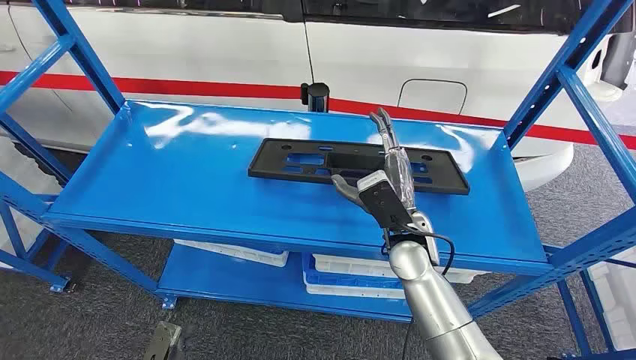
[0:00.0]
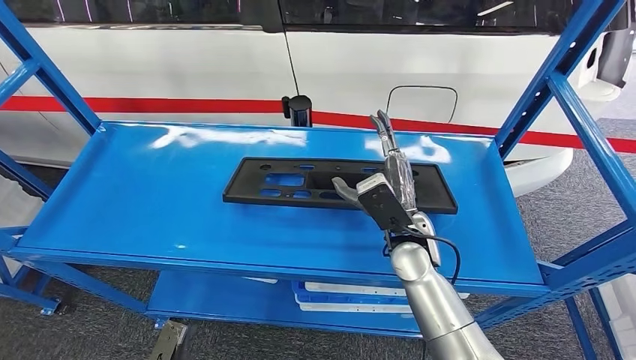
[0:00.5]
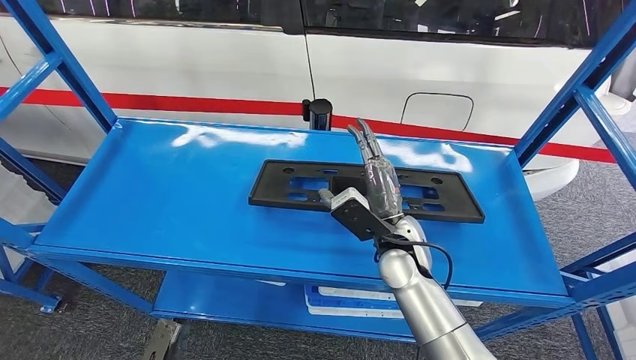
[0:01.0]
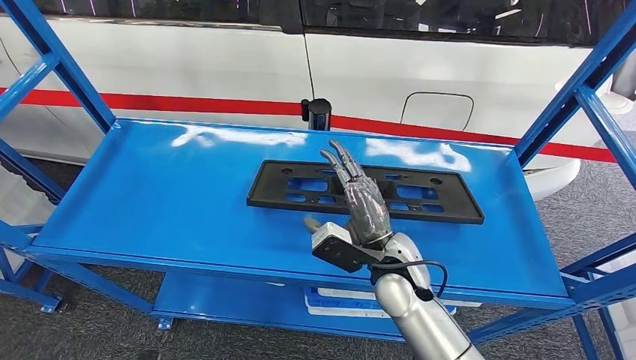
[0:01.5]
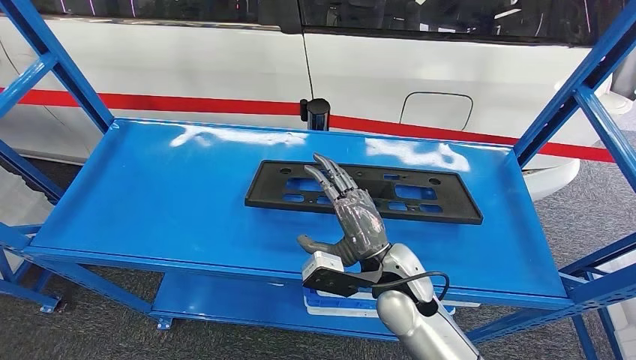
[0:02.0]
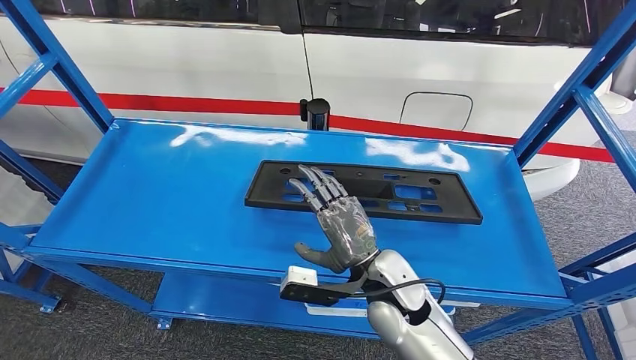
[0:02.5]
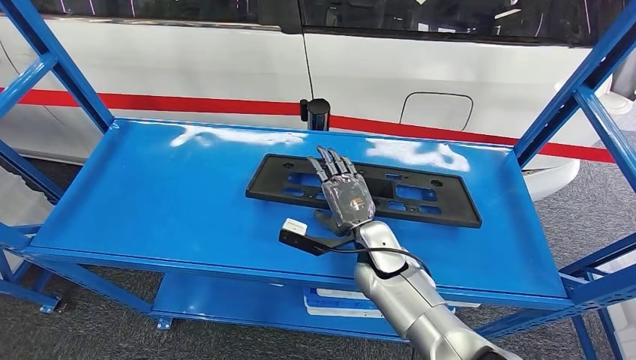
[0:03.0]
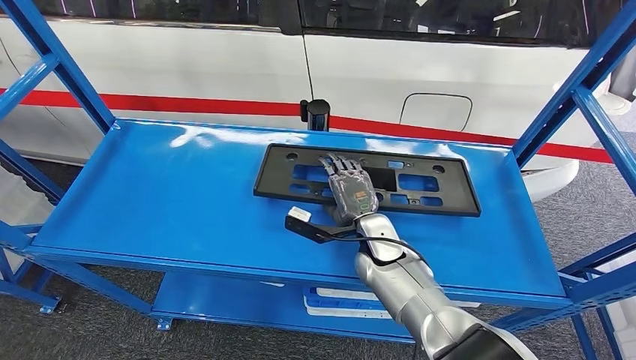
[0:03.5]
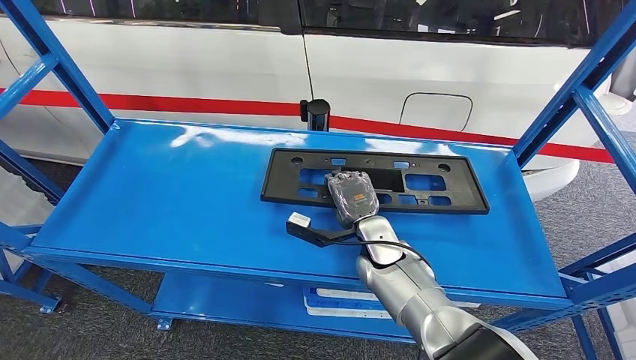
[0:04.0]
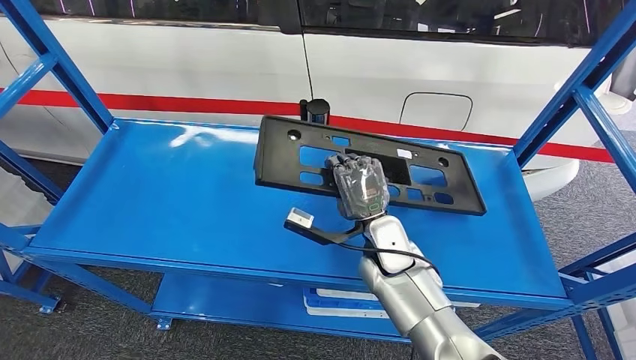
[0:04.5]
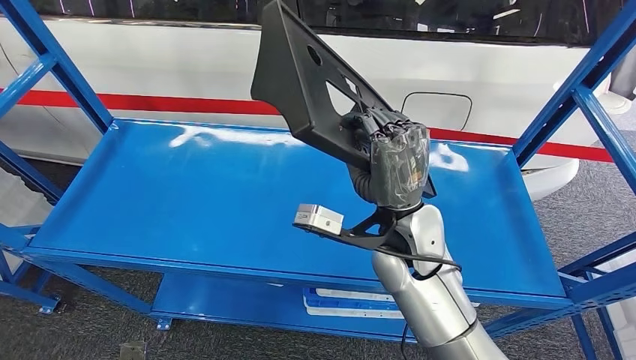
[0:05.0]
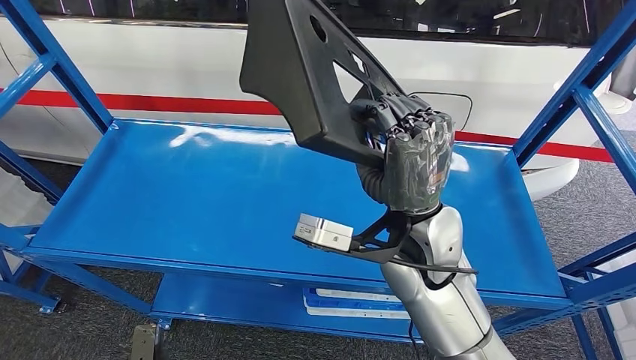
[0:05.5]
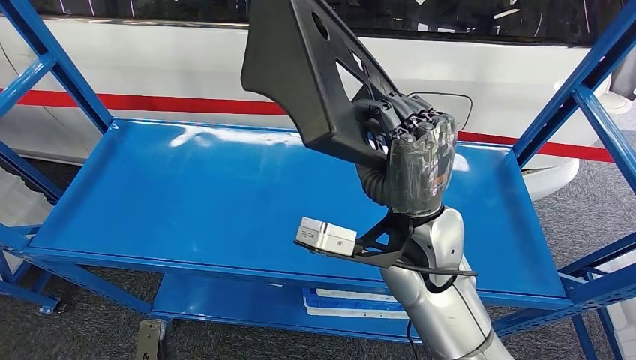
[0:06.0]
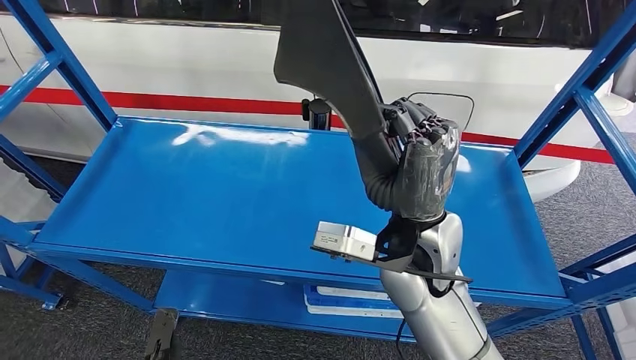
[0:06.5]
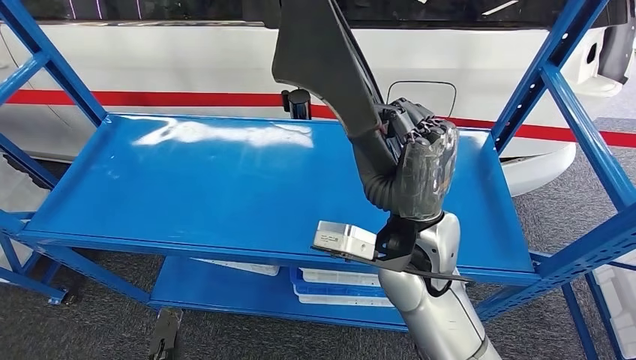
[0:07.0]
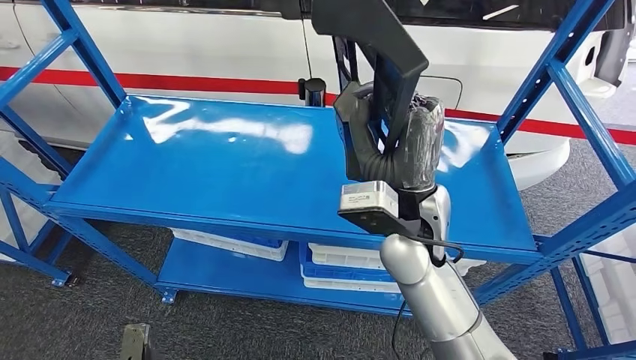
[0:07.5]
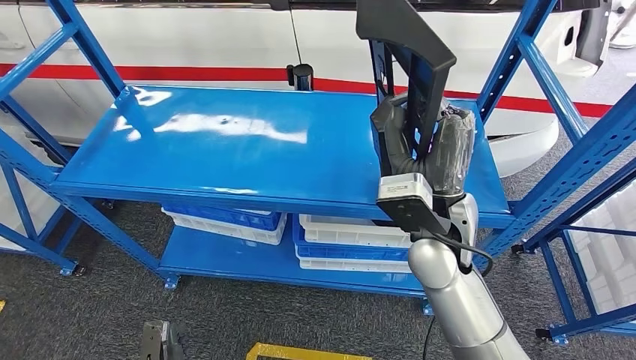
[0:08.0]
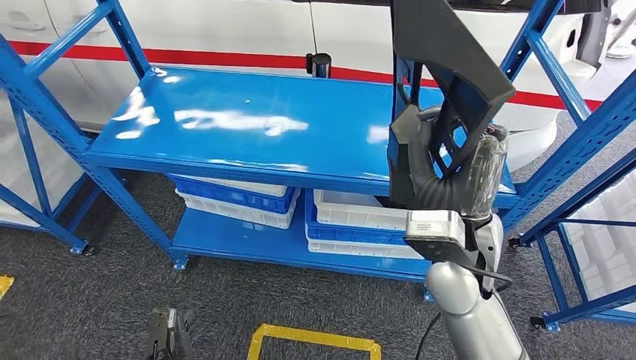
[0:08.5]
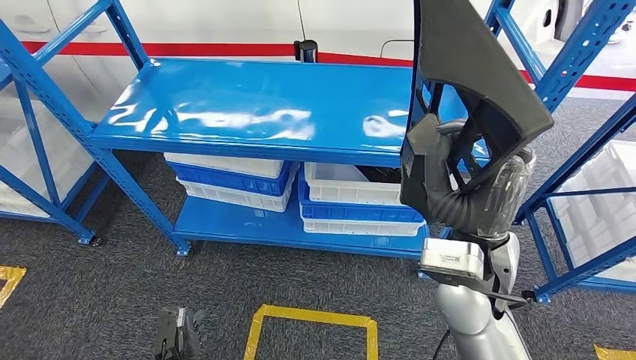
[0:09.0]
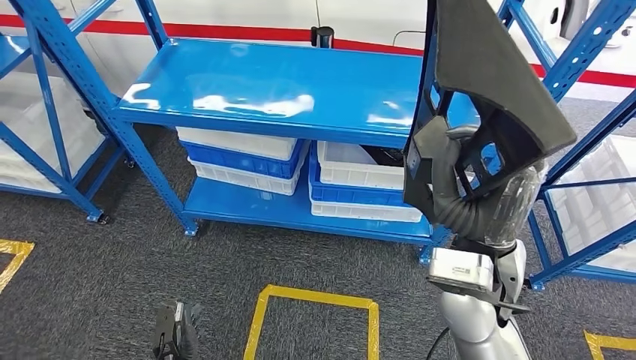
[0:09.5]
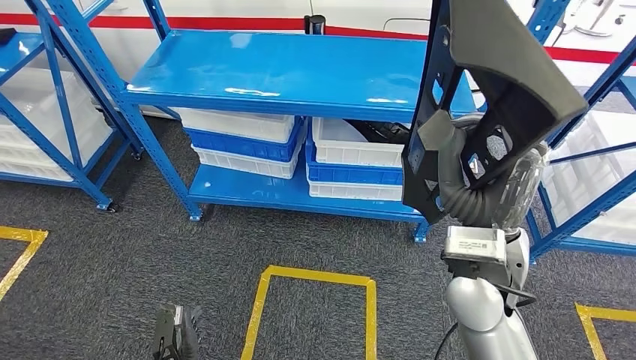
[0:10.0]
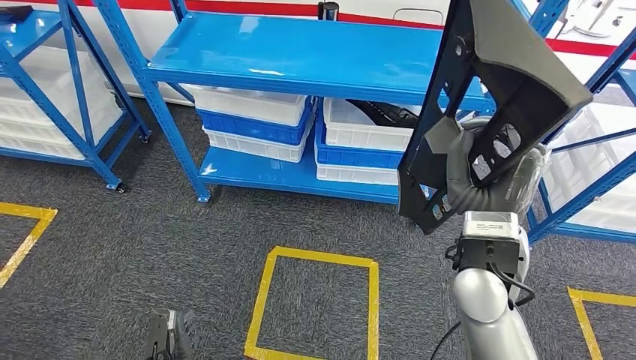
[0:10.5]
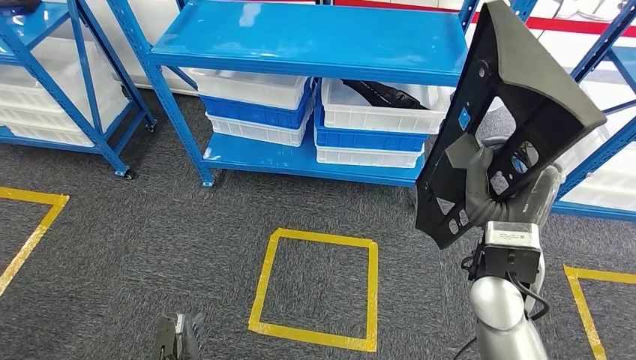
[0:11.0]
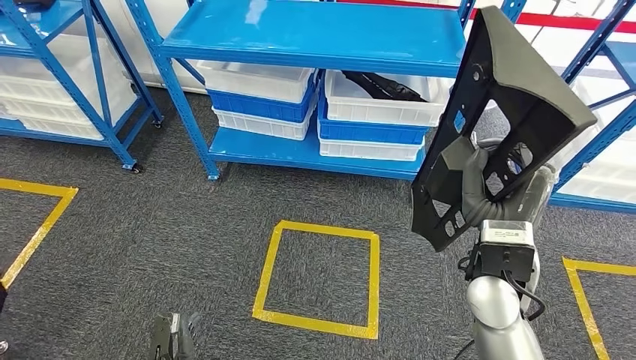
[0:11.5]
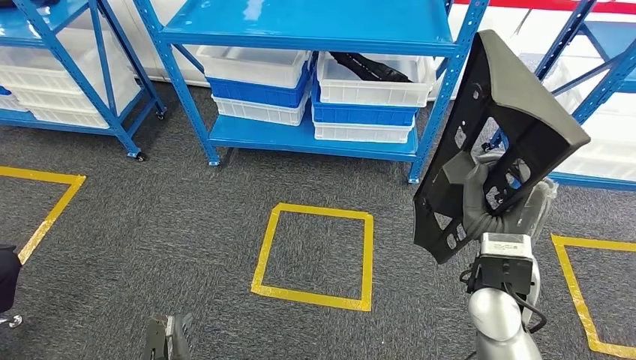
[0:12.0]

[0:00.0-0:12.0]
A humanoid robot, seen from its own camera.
Step, 0:00.0 to 0:05.0: Pick up the large material from the shelf.
0:02.0 to 0:04.0: The right hand heads forward and downward, covering about 10 cm.

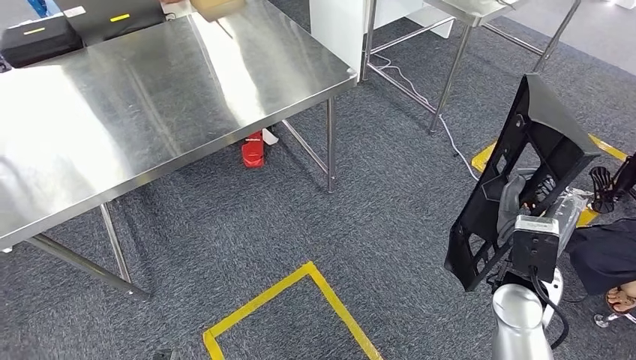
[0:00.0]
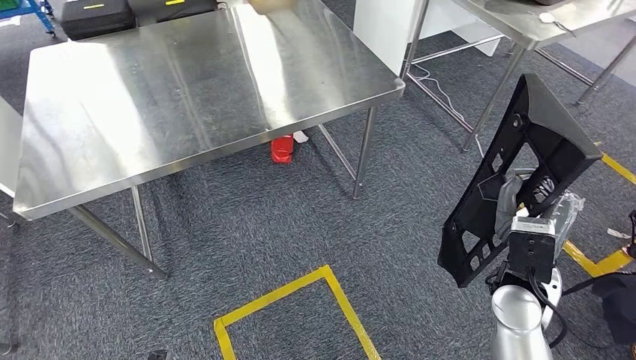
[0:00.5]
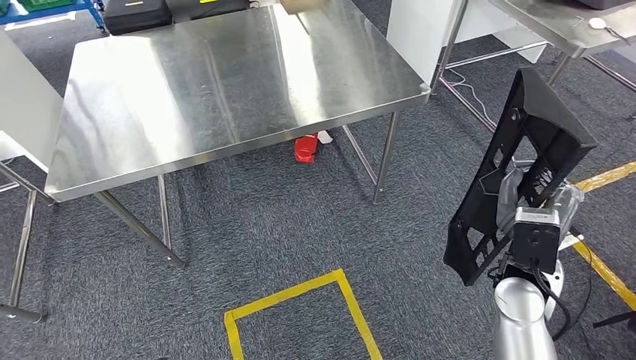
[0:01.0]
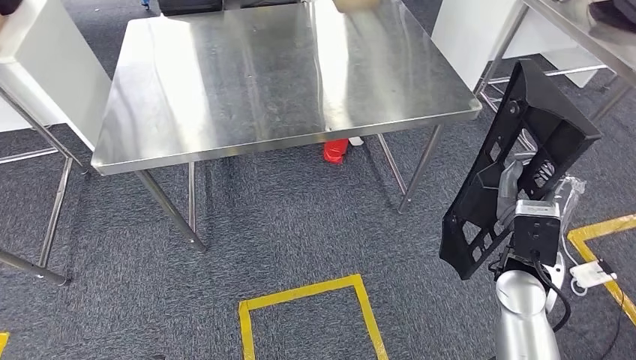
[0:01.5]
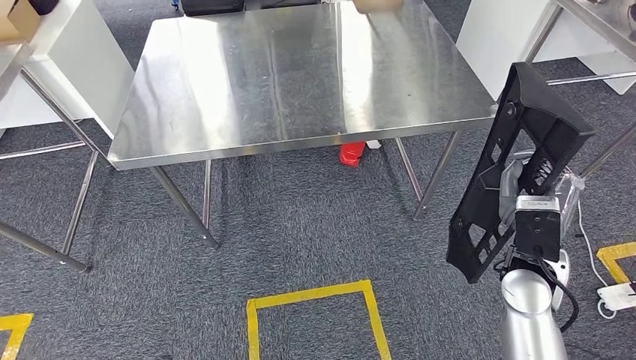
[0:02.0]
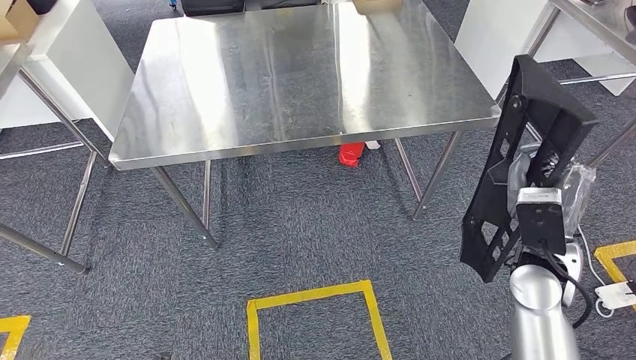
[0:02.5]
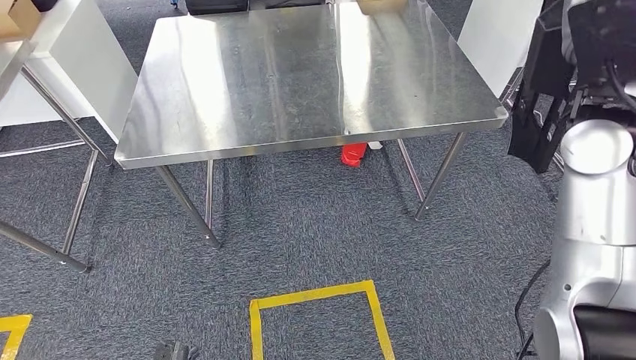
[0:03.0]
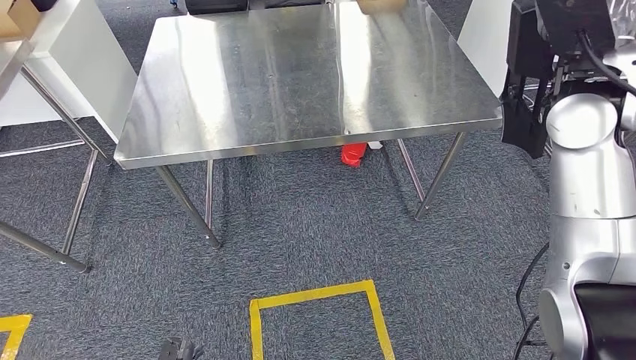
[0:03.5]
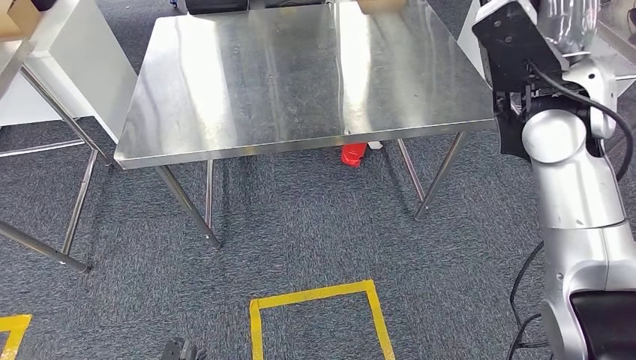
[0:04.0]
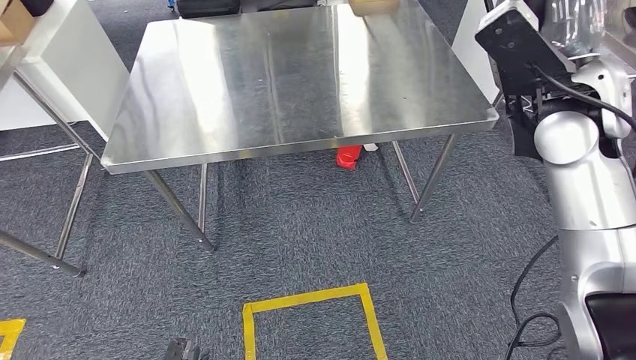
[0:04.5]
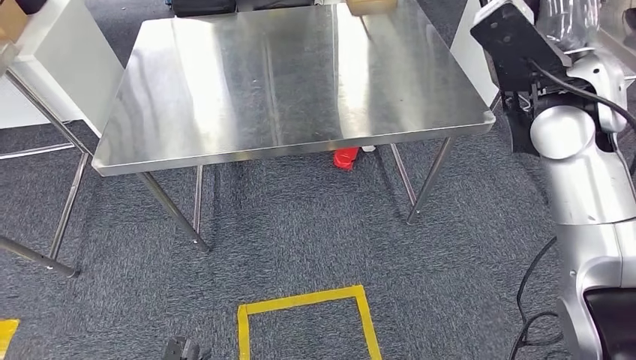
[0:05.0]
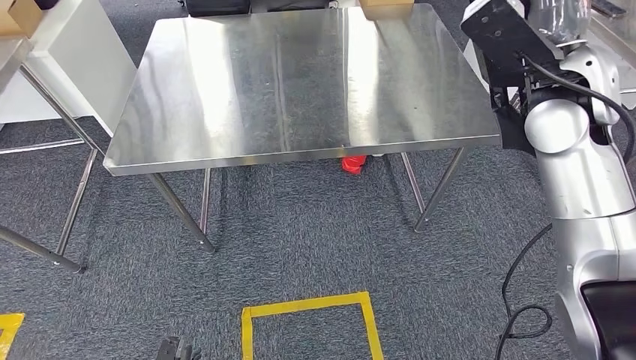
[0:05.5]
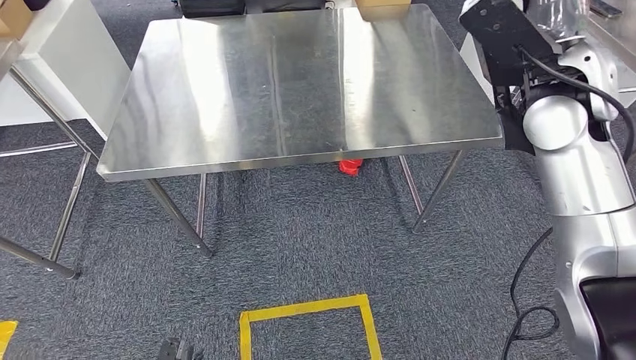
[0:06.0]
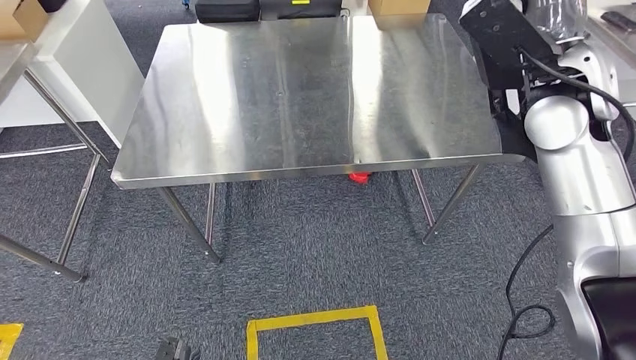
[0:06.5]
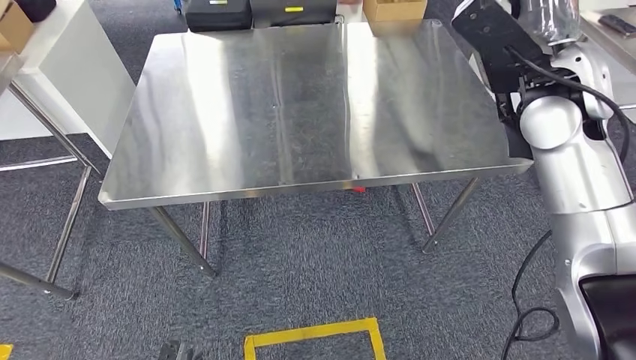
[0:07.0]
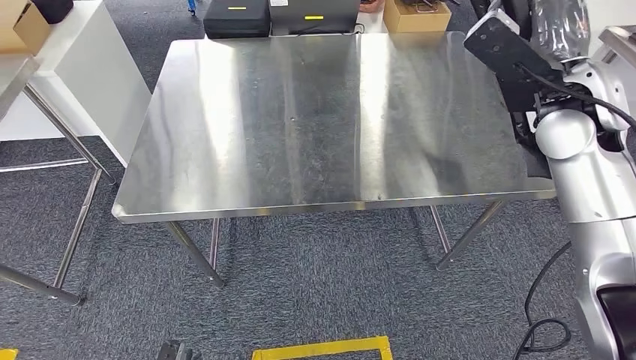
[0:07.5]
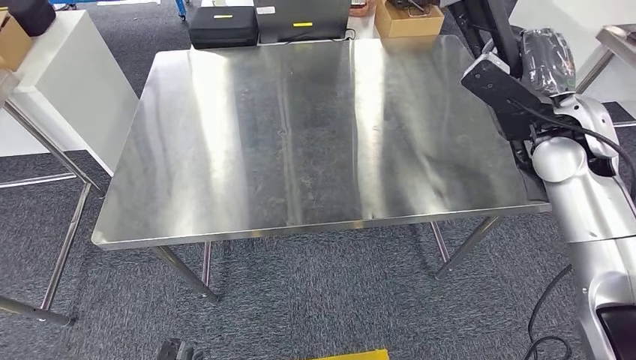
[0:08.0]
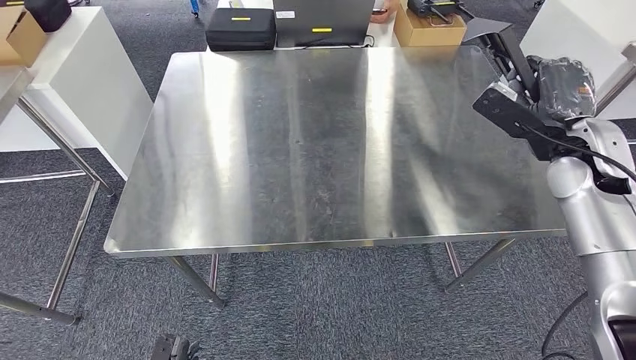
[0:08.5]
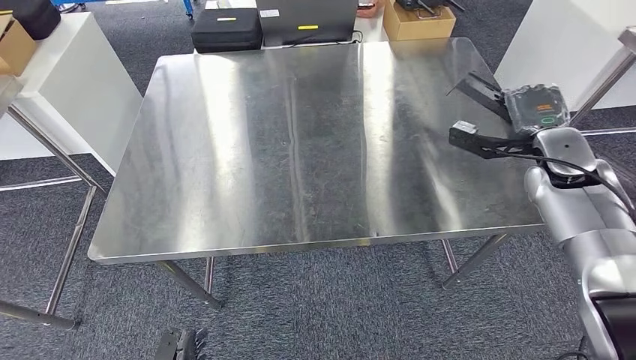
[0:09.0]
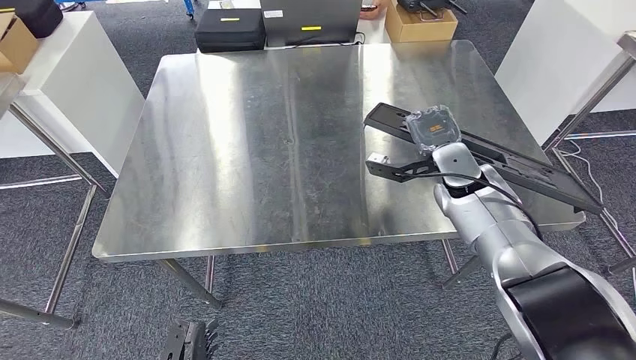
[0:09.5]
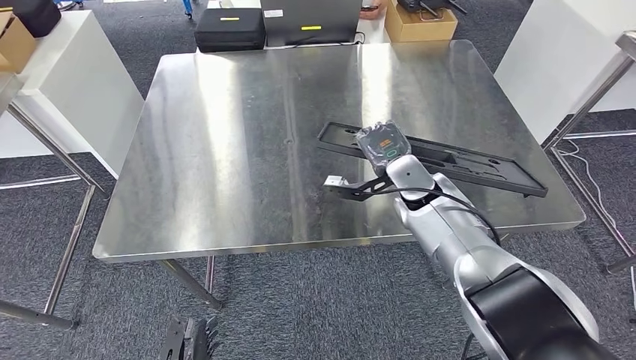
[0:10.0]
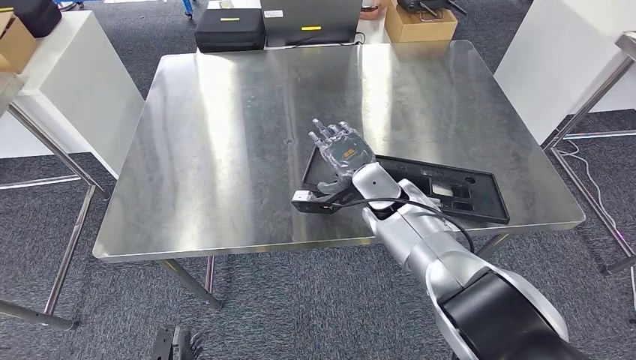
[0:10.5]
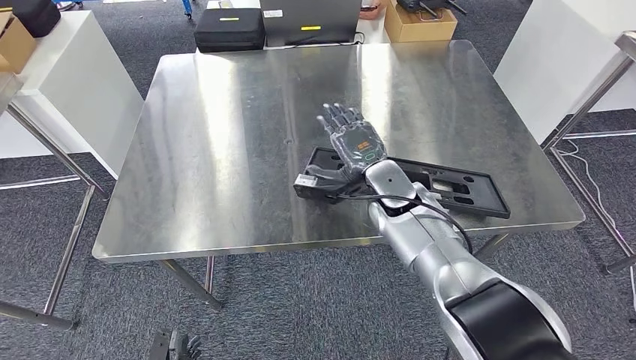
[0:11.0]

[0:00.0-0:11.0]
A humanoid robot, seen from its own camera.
Step, 0:00.0 to 0:02.0: Move the large material to the workbench.
